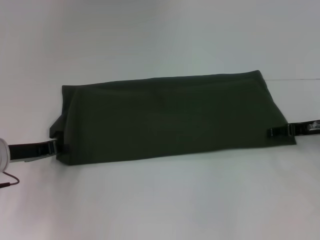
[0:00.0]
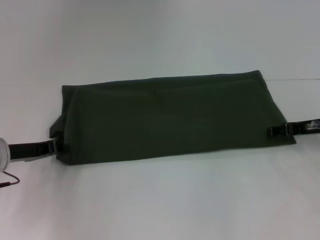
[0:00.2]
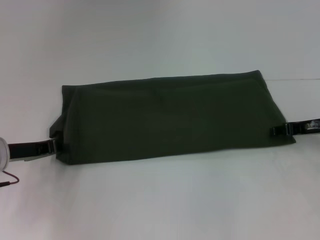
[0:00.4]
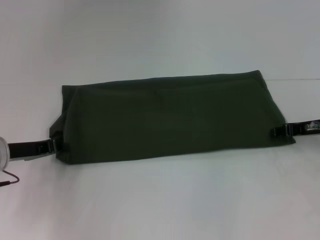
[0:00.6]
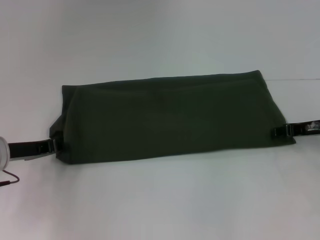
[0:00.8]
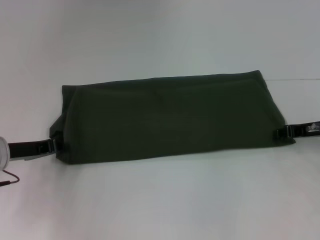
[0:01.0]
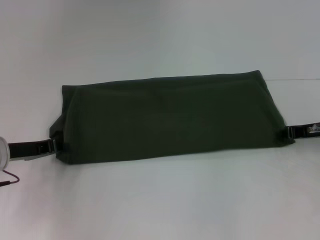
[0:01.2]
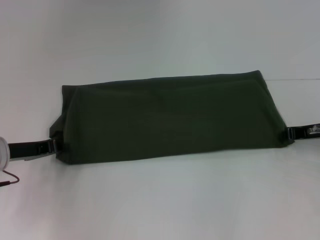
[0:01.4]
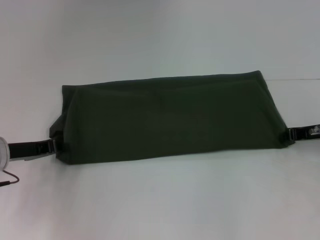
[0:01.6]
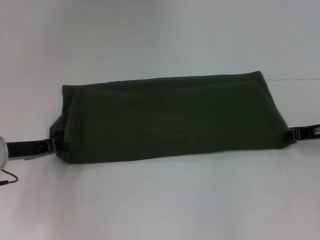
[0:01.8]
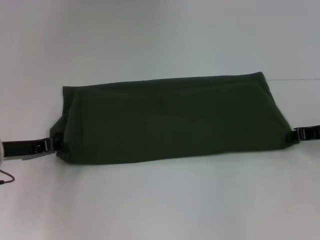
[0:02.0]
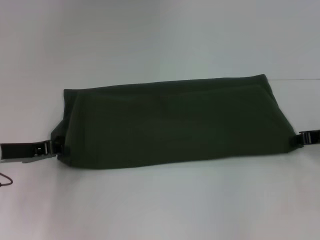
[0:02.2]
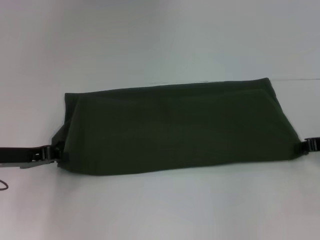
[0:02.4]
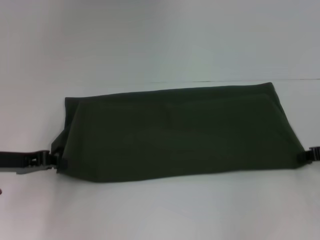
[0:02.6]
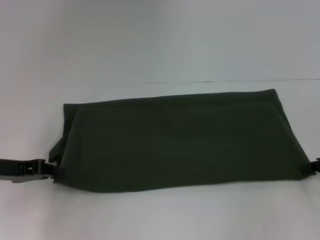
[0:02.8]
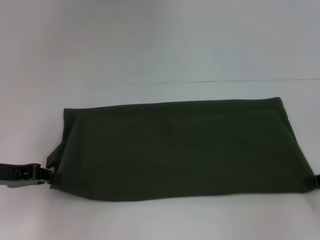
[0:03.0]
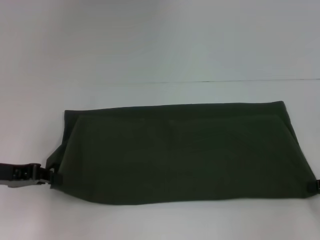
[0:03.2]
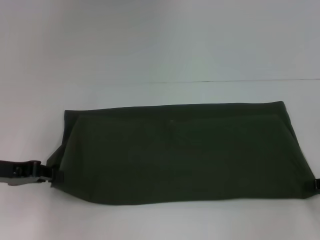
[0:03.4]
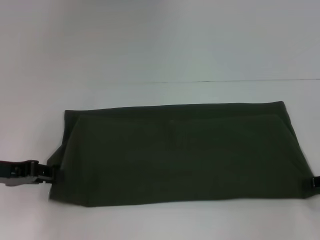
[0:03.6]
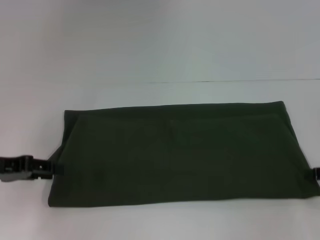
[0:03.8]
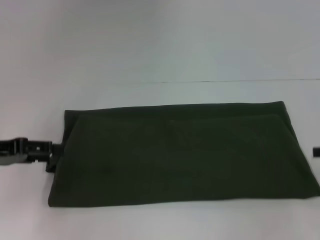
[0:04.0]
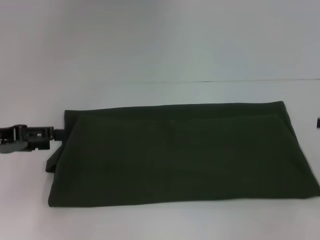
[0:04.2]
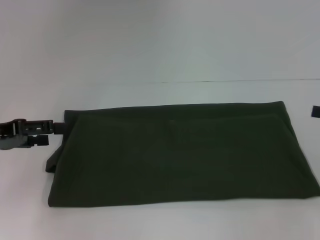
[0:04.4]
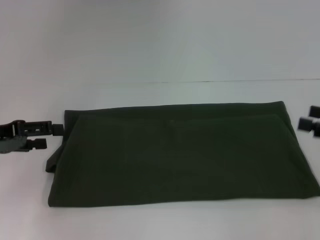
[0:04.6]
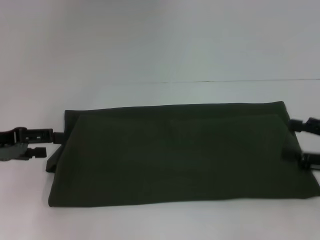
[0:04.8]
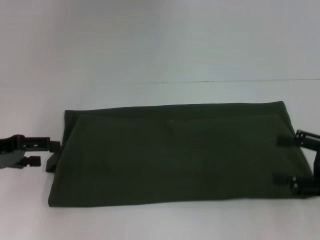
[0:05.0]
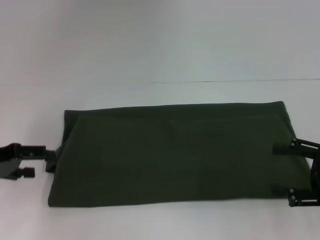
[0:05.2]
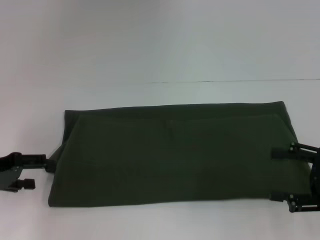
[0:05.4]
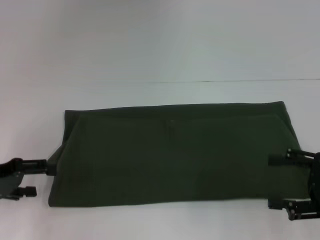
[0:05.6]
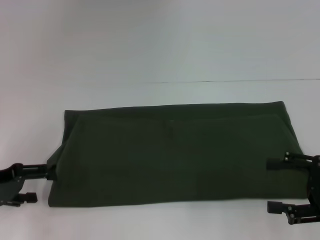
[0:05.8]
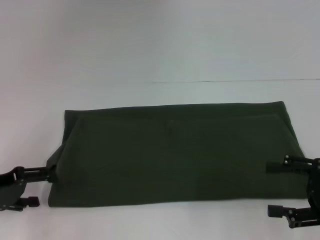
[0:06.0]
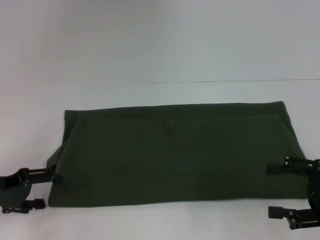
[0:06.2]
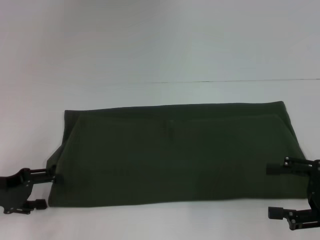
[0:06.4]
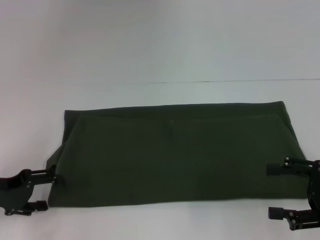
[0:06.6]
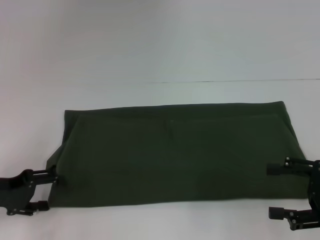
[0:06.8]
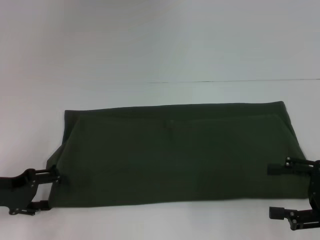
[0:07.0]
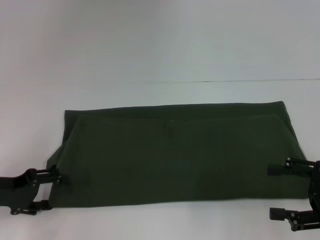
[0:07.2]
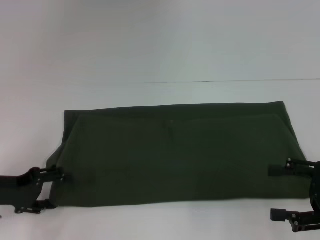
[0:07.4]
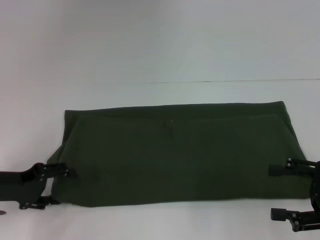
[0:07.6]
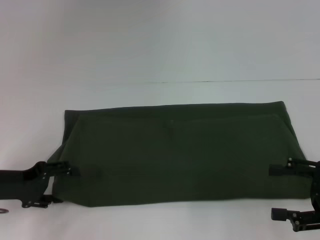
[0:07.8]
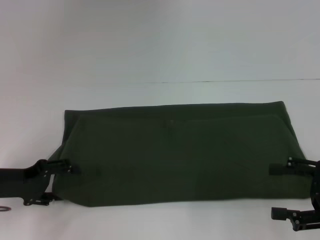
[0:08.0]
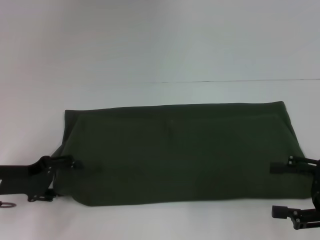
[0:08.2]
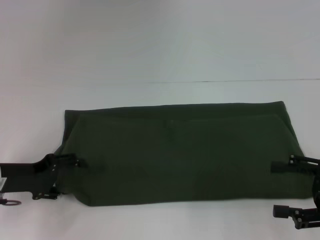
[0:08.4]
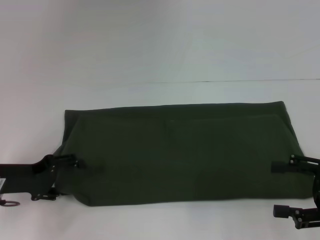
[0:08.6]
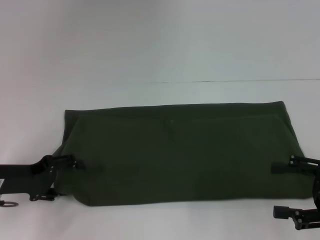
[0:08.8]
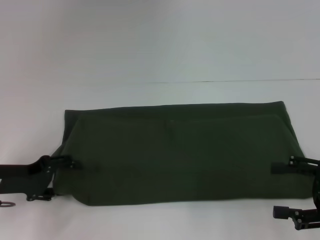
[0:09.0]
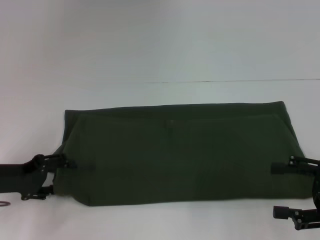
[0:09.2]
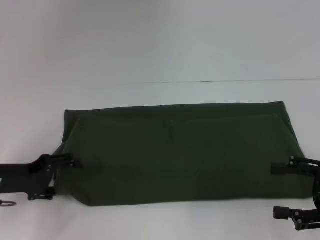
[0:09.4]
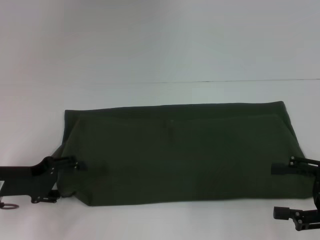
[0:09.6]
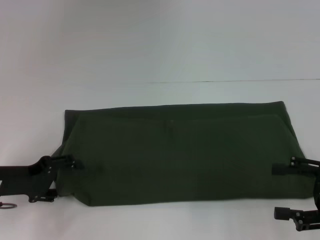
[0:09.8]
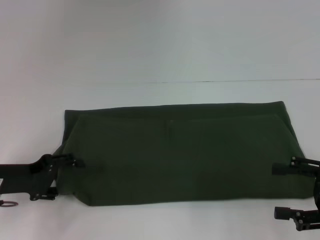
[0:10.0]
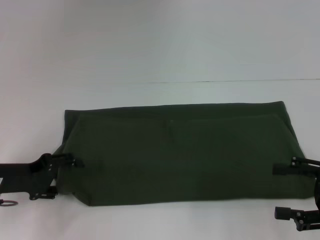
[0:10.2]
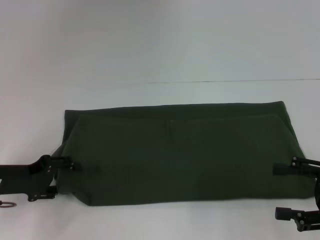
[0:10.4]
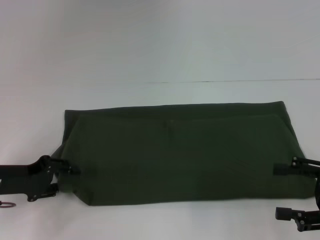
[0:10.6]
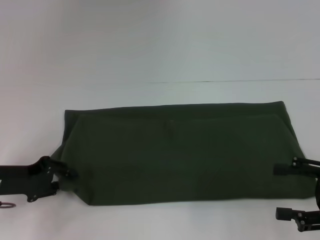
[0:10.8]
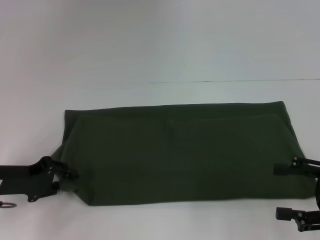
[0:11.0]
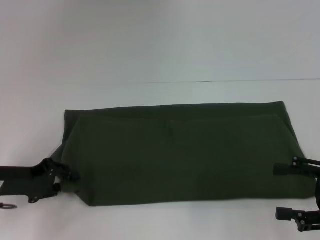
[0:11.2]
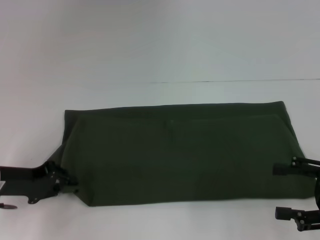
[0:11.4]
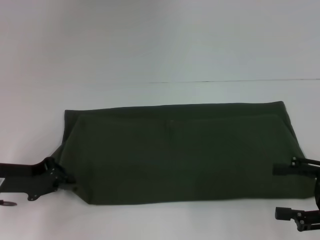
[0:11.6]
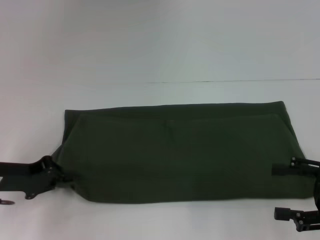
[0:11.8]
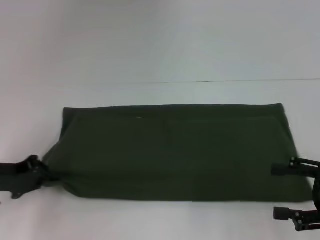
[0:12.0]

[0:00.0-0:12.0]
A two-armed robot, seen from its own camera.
0:00.0 to 0:01.6: The right gripper closes its fingers.
0:01.6 to 0:03.0: The right gripper is displaced backward and to the right by roughly 10 cm, while the left gripper moves about 5 cm.
0:03.0 to 0:04.4: The left gripper opens its fingers, while the right gripper shifts approximately 5 cm upward, and opens up.
0:04.4 to 0:06.0: The right gripper heads to the left and backward, covering approximately 10 cm; the left gripper goes approximately 5 cm downward.
0:06.0 to 0:09.0: The grippers stay close to where they were, moving slightly.
0:09.0 to 0:10.4: Both grippers stay about where they are.
0:10.4 to 0:12.0: The left gripper closes up.

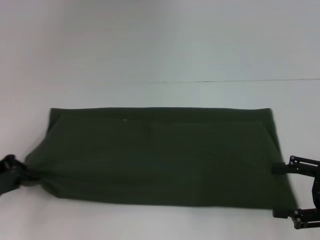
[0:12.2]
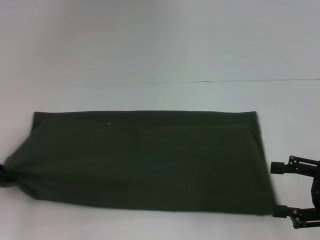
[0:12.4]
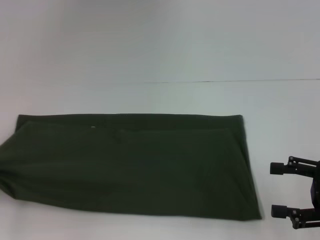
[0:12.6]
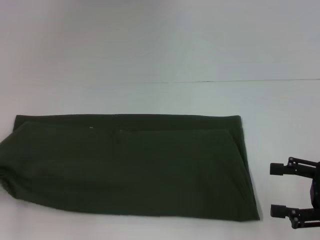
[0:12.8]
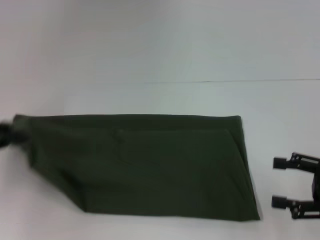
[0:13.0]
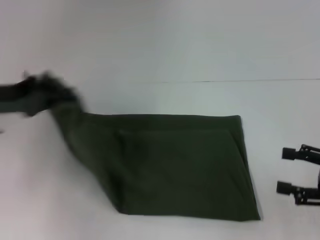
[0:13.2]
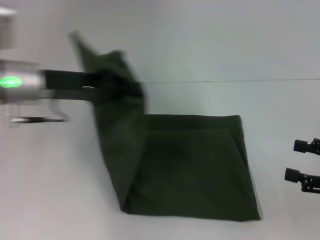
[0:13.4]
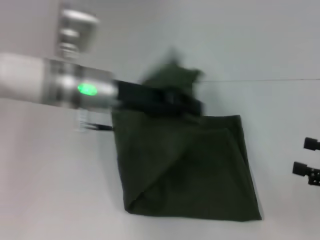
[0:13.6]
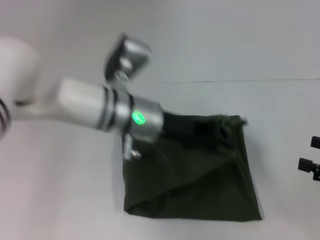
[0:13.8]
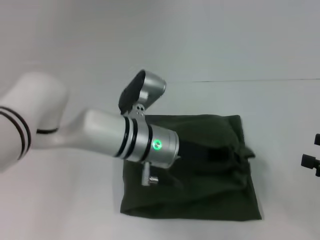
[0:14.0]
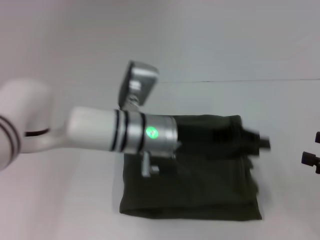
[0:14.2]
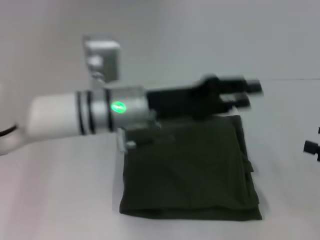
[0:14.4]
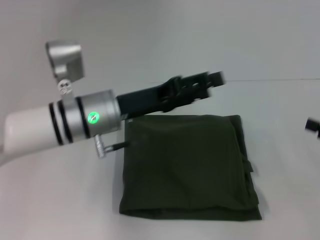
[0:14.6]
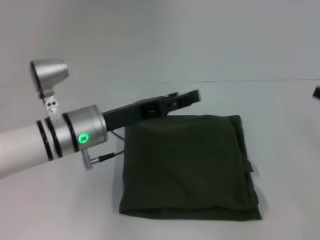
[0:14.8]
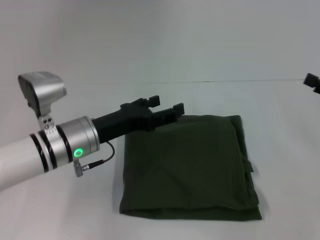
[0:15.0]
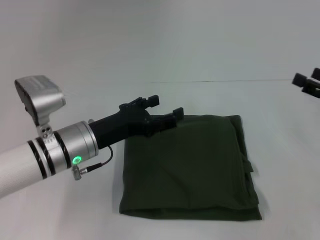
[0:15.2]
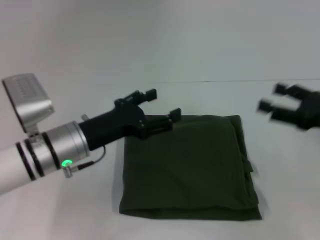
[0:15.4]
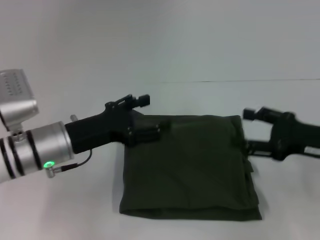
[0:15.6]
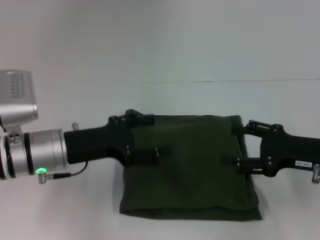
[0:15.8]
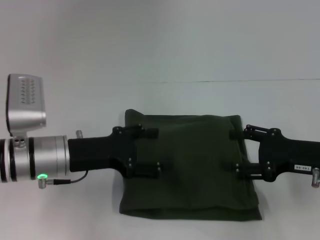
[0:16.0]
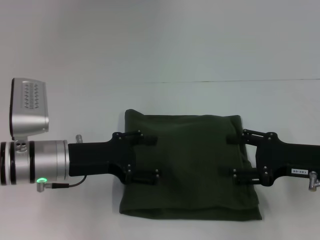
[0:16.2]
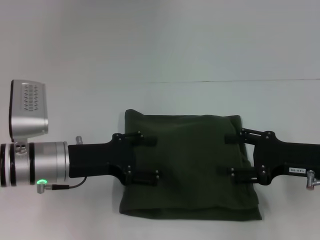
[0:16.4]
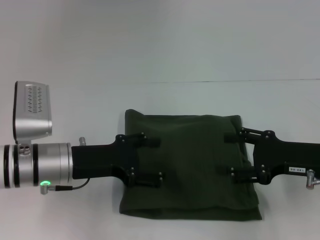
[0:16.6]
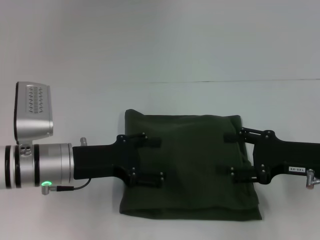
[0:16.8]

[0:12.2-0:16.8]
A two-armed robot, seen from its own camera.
Step, 0:12.2 to 0:14.2: Fold the clothes with your left hand.
0:12.2 to 0:13.8: The left gripper travels to the right by roughly 30 cm.
0:13.8 to 0:15.2: The right gripper goes some 5 cm forward. Meanwhile the left gripper is displaced to the left and downward by roughly 10 cm, and opens its fingers.
0:15.2 to 0:16.8: The right gripper shifts approximately 10 cm to the left.
